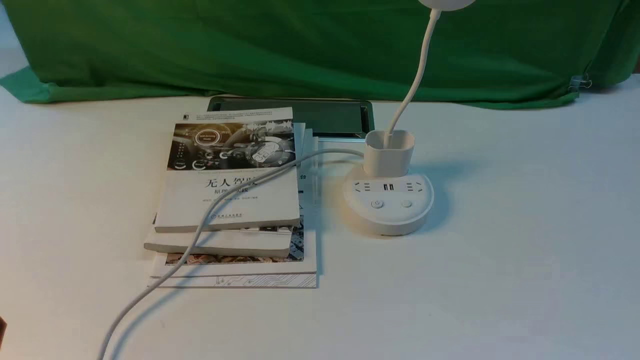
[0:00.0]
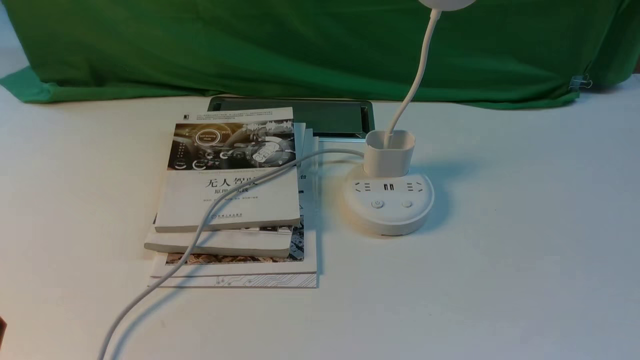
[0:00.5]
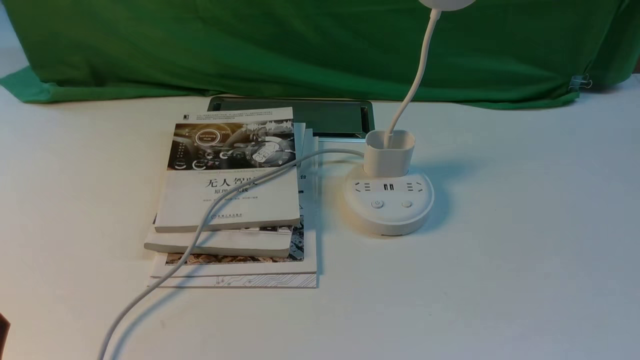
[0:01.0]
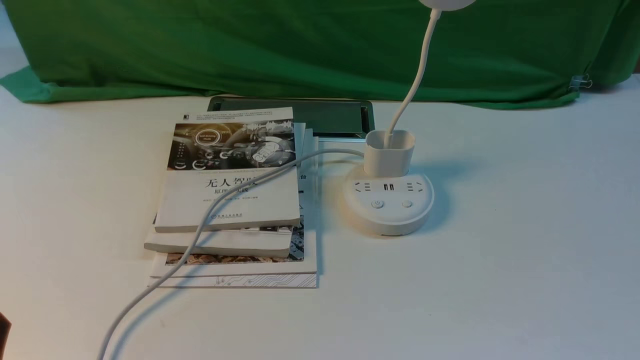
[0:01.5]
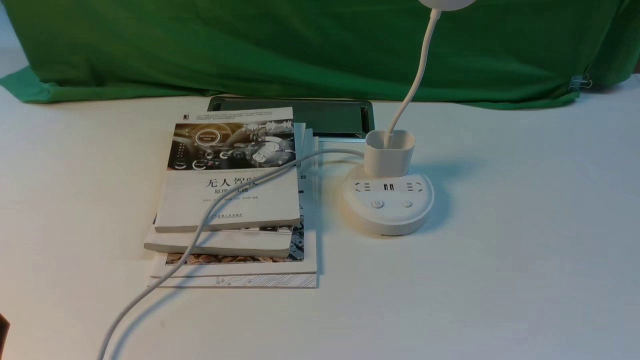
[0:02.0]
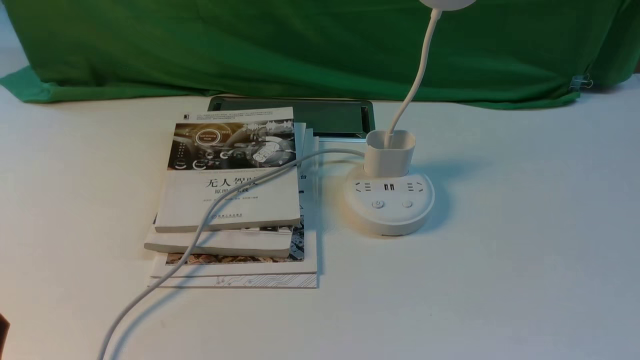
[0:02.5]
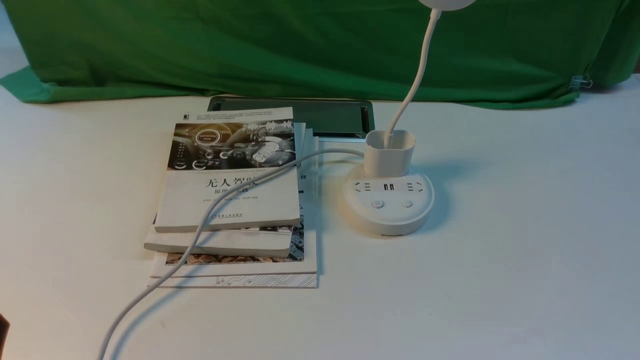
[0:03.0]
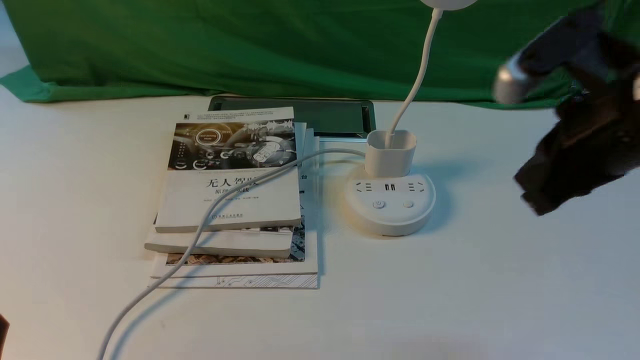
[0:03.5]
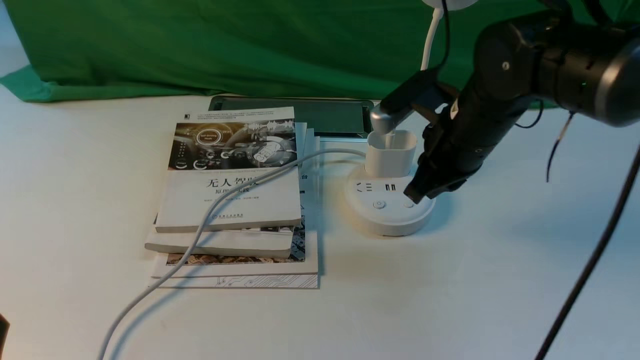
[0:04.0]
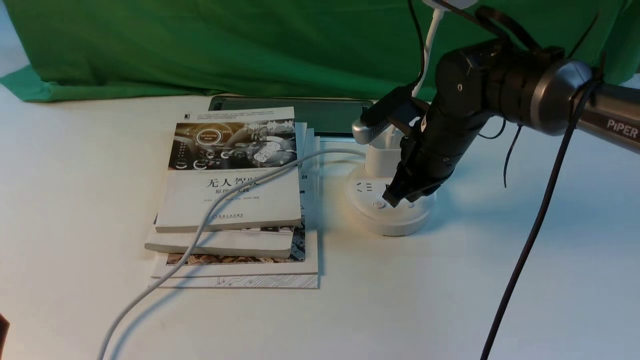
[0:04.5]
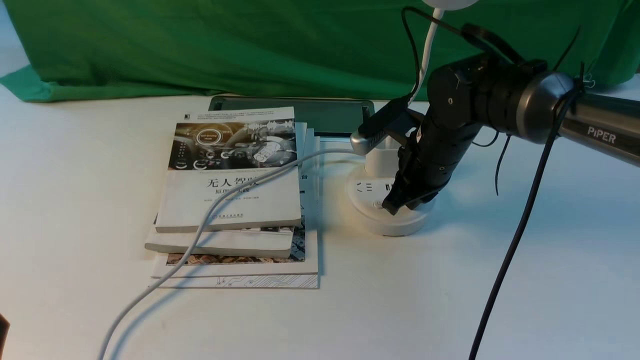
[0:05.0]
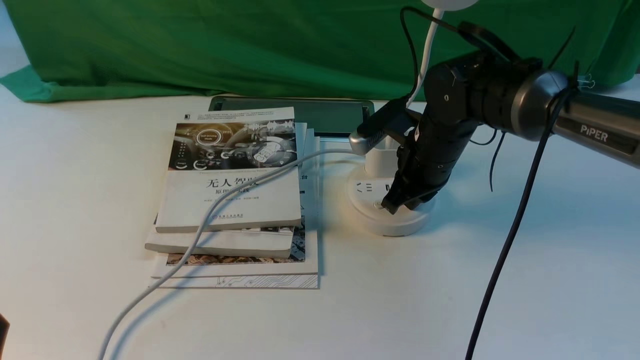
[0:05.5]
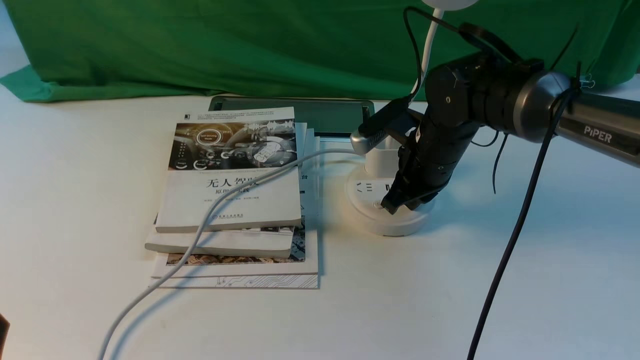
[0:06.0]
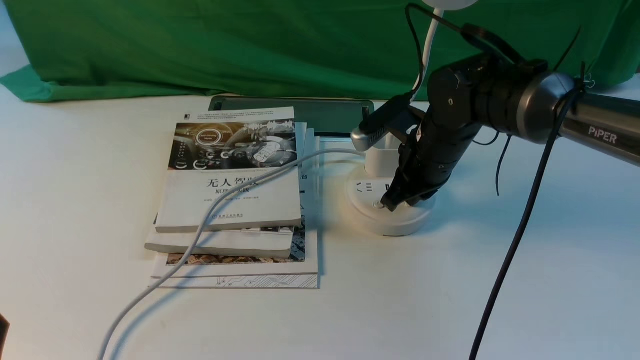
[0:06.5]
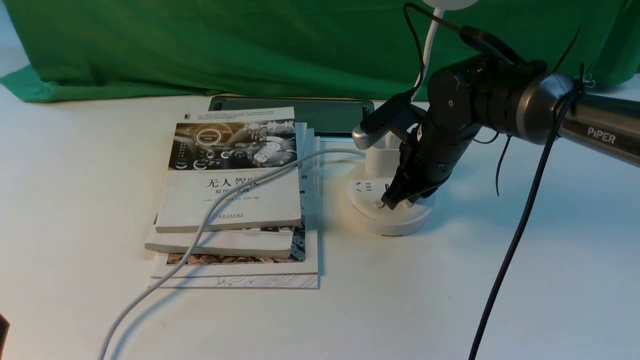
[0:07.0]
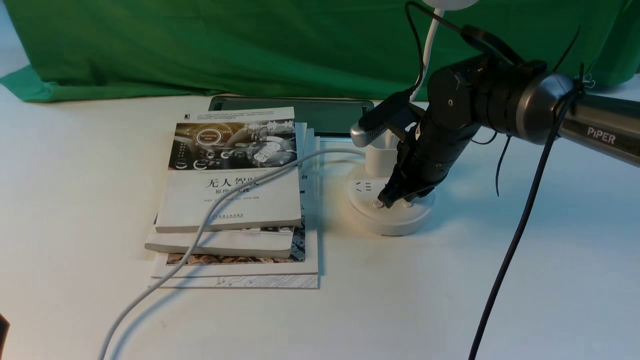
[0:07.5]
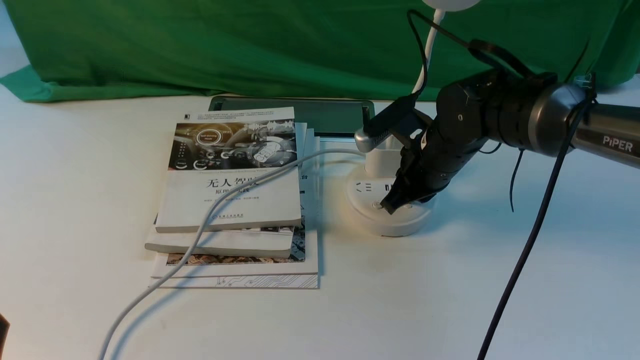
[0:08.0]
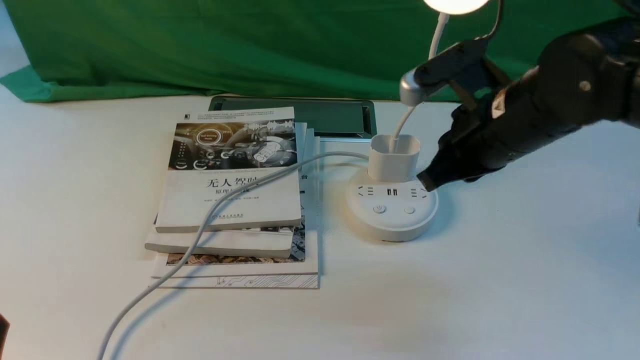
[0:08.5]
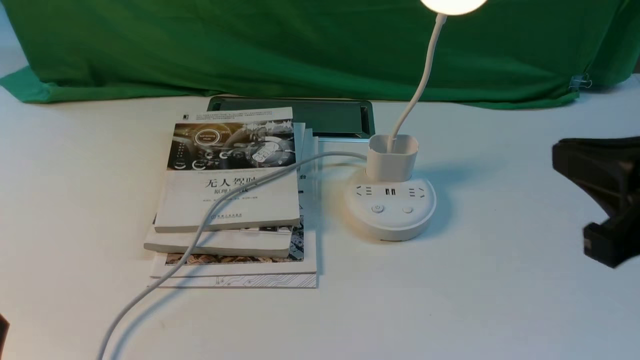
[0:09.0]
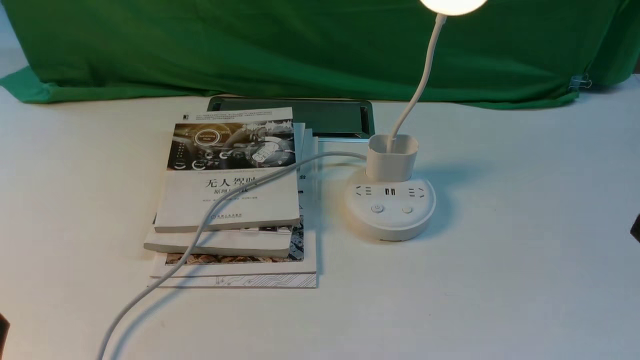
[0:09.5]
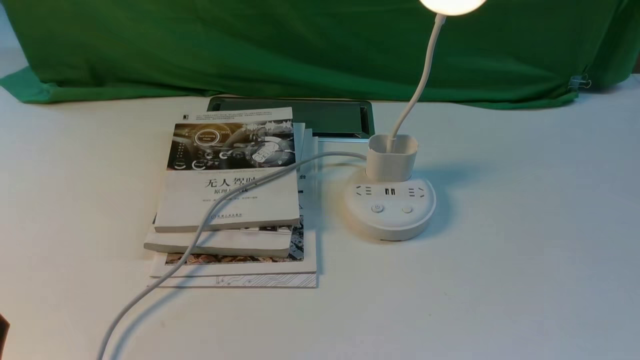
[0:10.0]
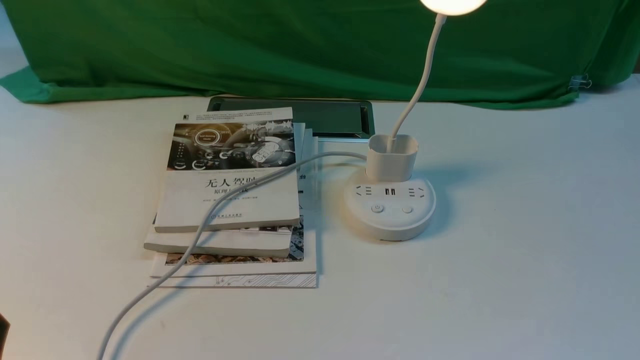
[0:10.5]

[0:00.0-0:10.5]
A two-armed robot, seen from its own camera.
Step, 0:00.0 to 0:08.5: use the right arm to press the button switch on the lamp holder.
0:02.0 to 0:04.0: The right gripper is displaced forward and to the left by roughly 35 cm, and closes its fingers.
0:04.0 to 0:06.5: The right gripper is displaced downward and forward by about 10 cm.
0:06.5 to 0:08.5: The right gripper heads upward and backward, covering approximately 10 cm.
0:08.5 to 0:10.5: The right gripper shifts approximately 35 cm backward and to the right, and opens its fingers.

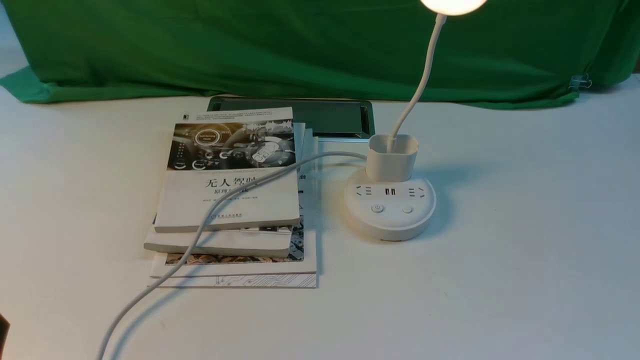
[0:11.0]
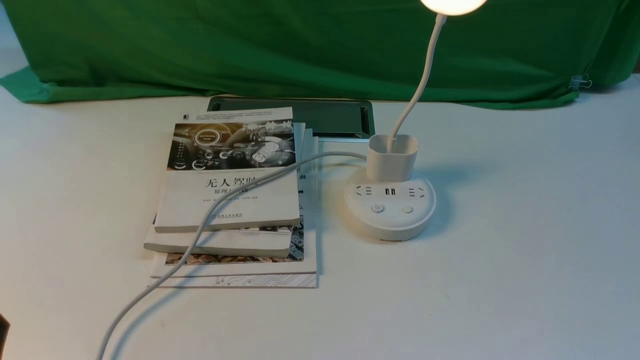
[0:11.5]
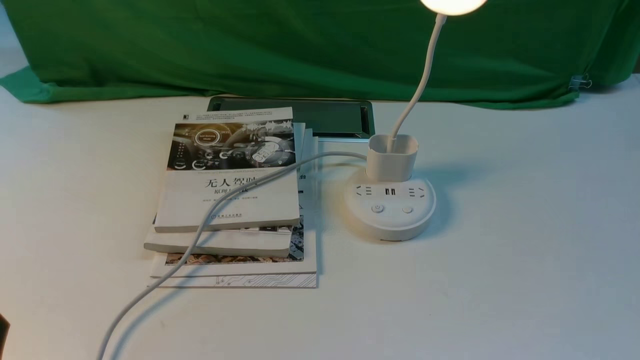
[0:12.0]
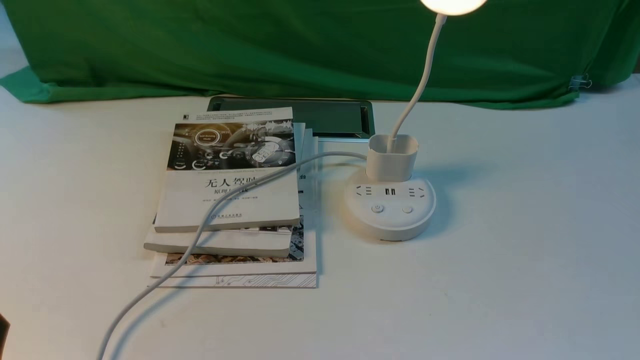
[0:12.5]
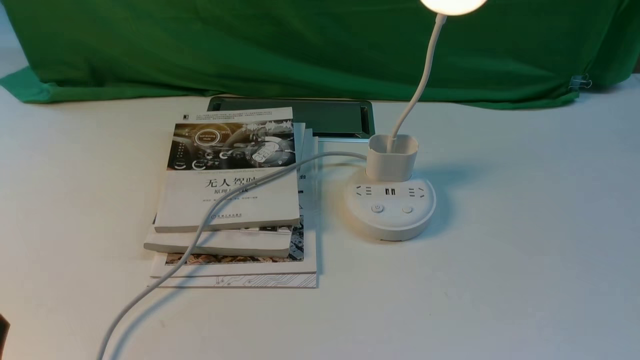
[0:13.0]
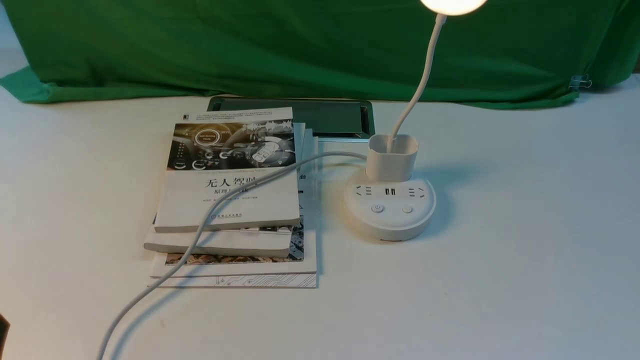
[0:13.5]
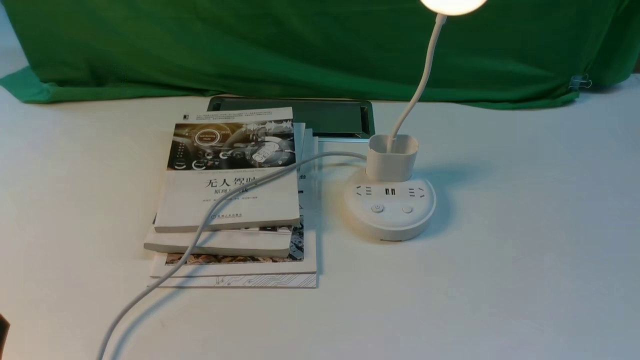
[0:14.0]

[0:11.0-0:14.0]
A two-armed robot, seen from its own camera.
0:11.0 to 0:14.0: Neither gripper changes place.

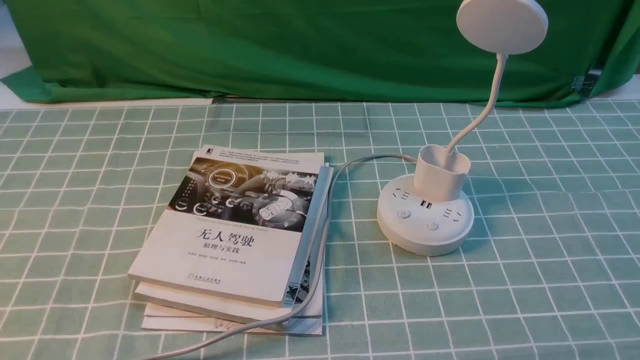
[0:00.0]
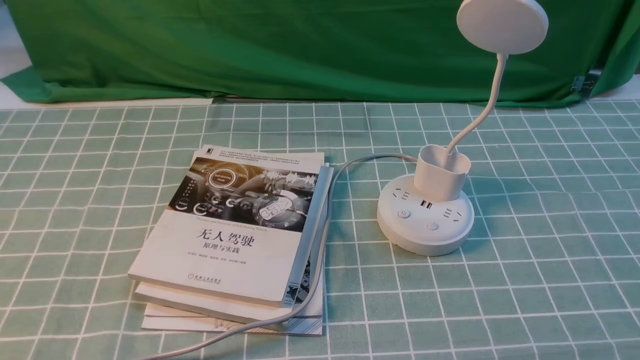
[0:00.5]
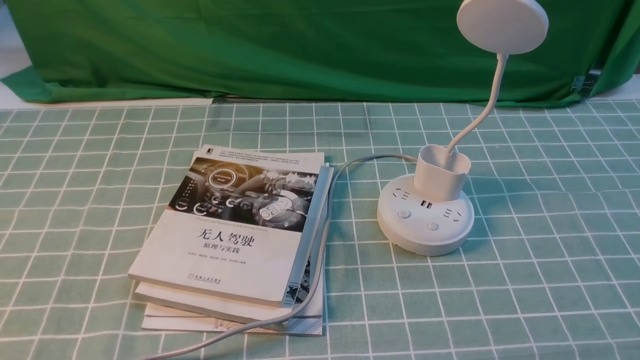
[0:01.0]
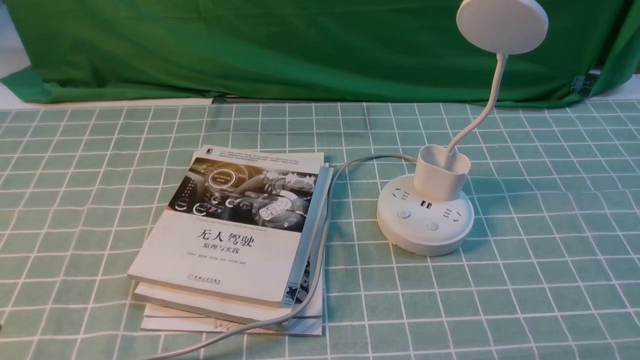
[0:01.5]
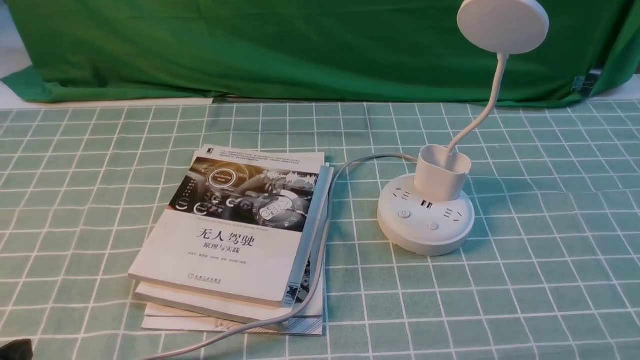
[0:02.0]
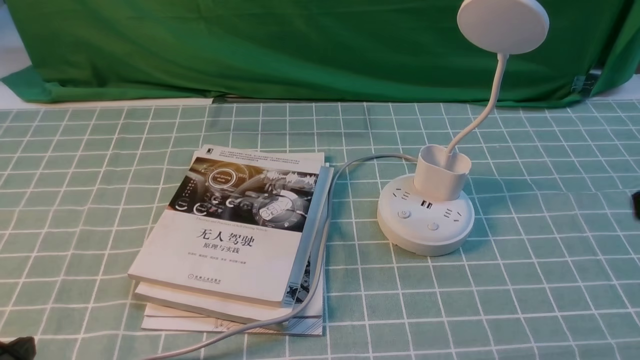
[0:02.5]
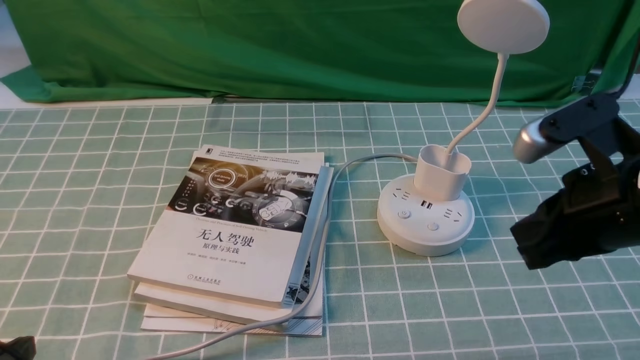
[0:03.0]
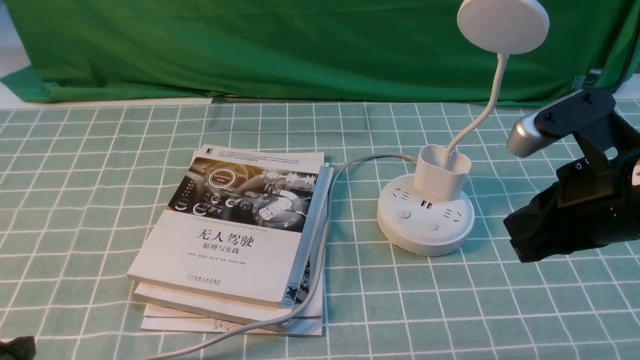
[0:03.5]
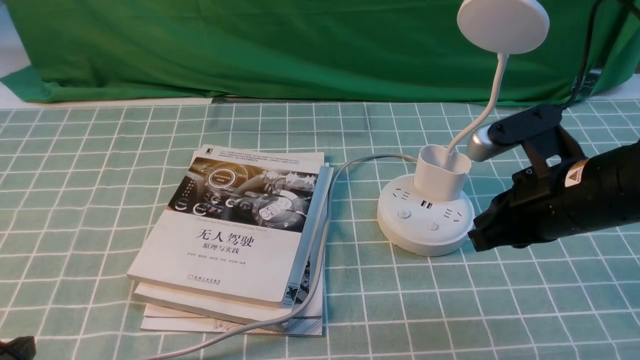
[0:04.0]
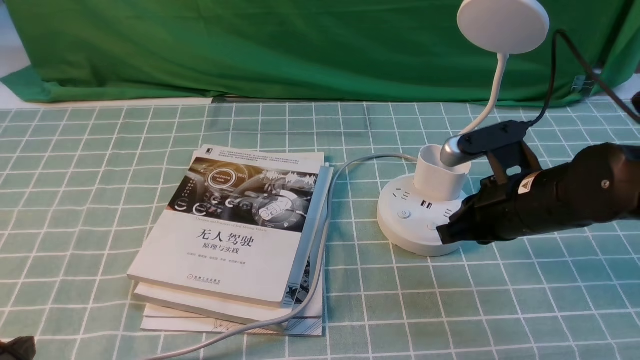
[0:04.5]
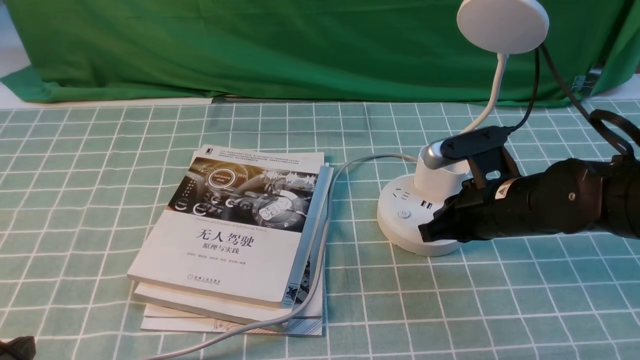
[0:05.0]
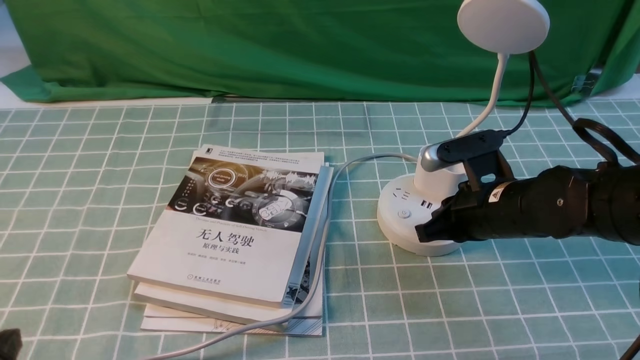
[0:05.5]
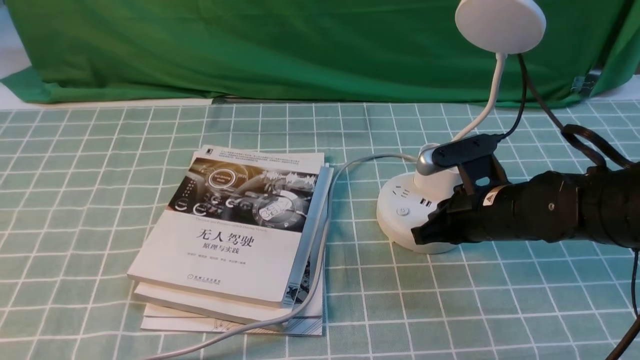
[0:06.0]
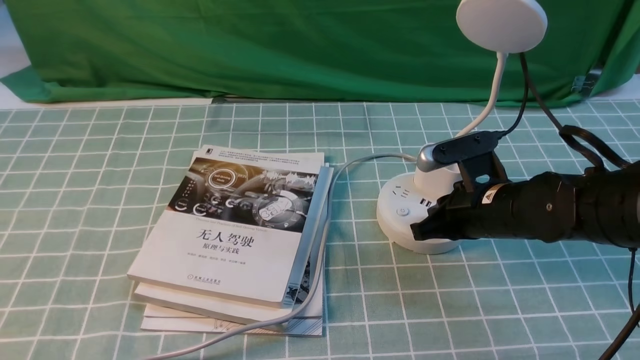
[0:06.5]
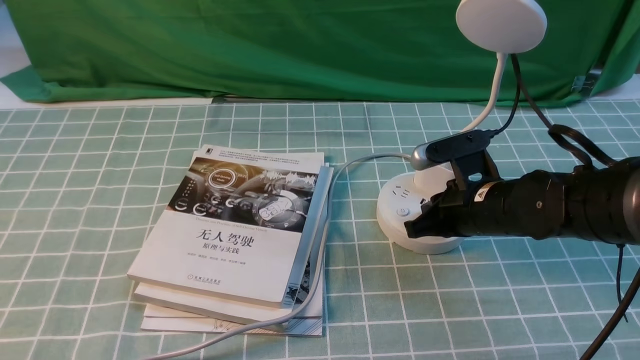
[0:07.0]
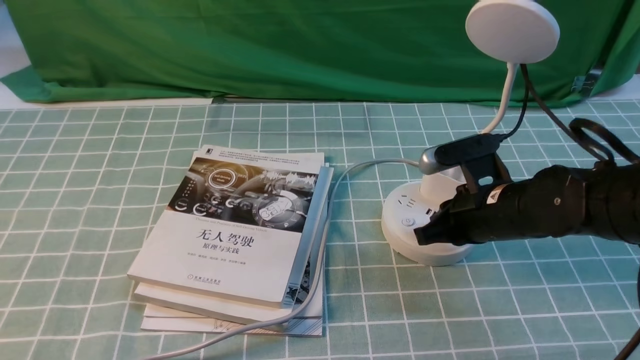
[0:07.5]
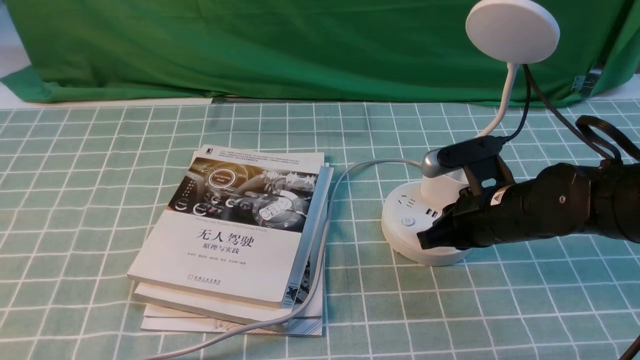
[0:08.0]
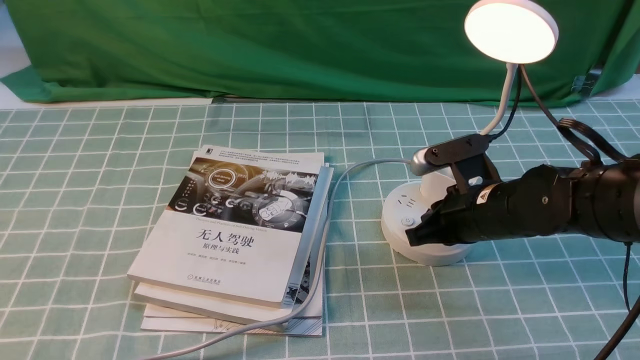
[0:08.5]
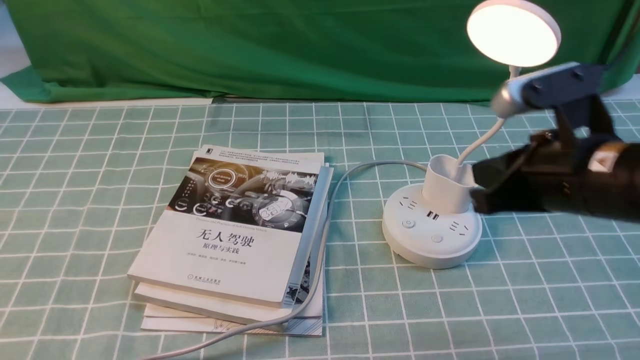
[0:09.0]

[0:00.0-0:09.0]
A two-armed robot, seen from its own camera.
Step, 0:00.0 to 0:08.5: use the right arm to press the button switch on the lamp holder.
0:02.0 to 0:04.5: The right gripper travels forward and to the left by some 25 cm, and closes up.
0:04.5 to 0:07.0: The right gripper shifts roughly 5 cm downward.
0:07.0 to 0:09.0: The right gripper shifts about 10 cm upward and backward.
